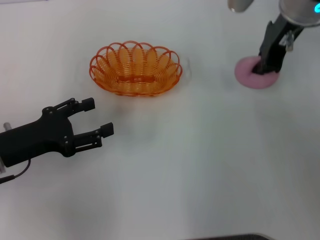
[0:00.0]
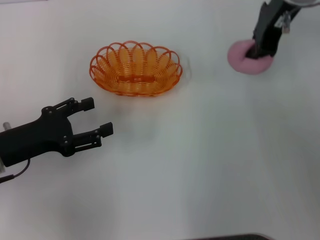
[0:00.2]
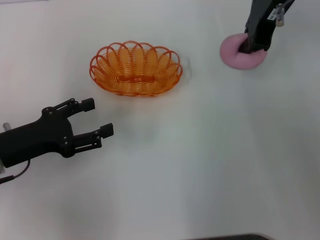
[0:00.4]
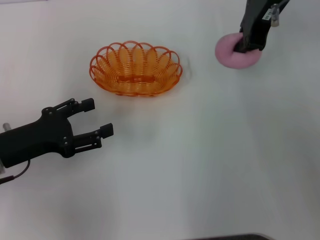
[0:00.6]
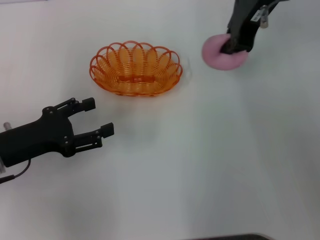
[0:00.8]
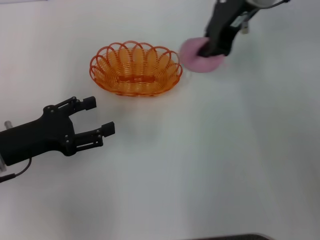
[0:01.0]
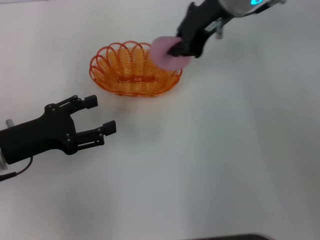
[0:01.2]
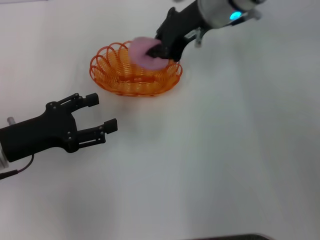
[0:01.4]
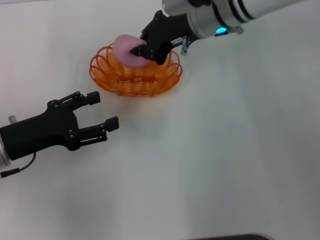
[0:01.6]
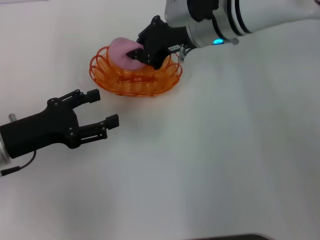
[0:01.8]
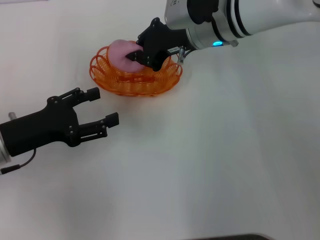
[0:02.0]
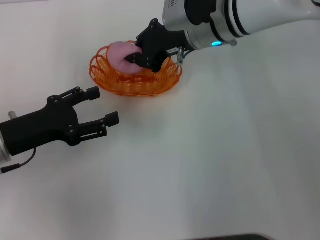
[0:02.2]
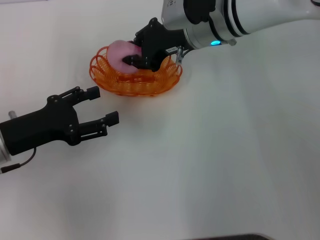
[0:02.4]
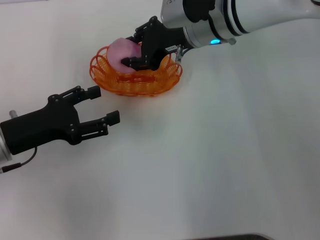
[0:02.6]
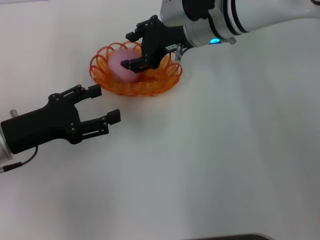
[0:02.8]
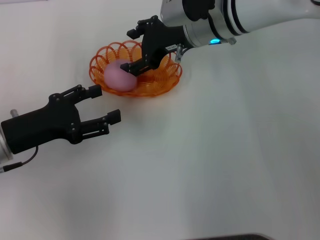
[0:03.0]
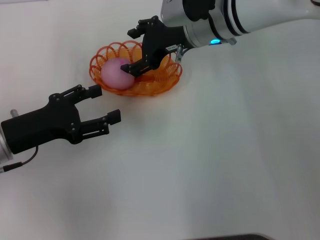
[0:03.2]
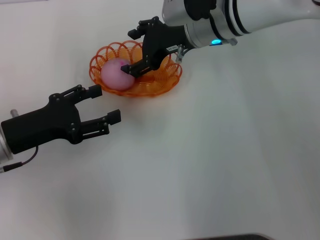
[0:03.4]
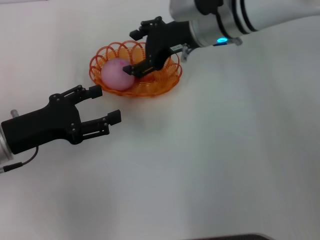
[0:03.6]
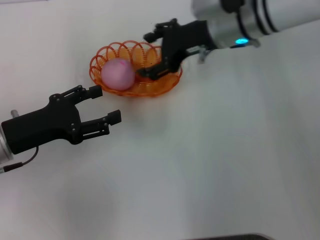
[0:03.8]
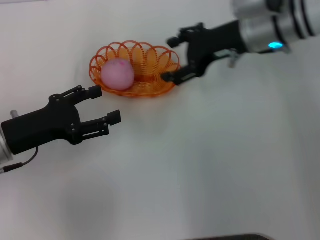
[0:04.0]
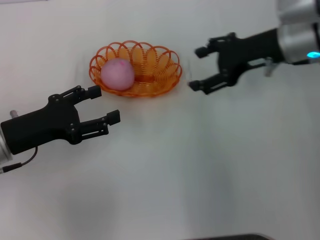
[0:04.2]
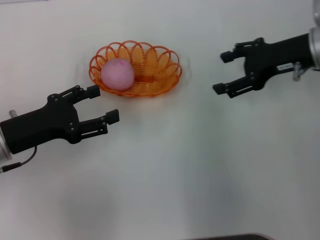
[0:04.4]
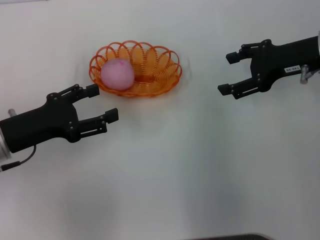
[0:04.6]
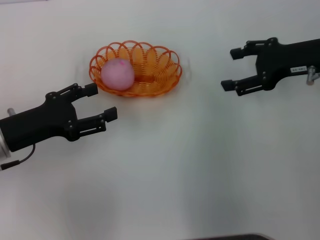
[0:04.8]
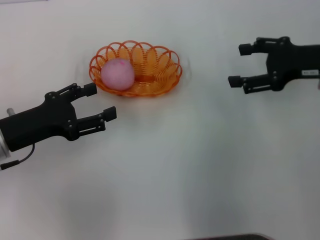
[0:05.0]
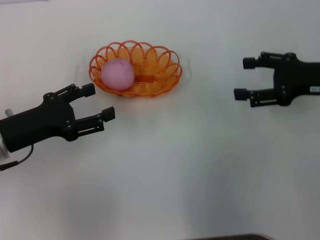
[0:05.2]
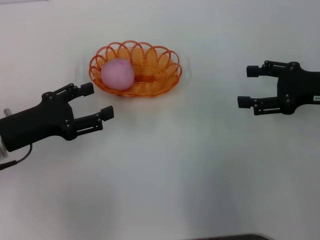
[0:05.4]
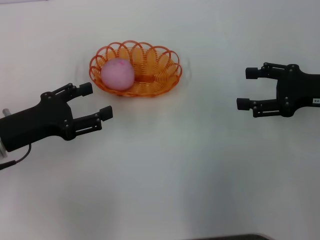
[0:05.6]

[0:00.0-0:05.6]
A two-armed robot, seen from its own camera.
Step, 0:00.4 to 0:03.6: Place the peach into the basket with the right gripper.
0:00.0 to 0:01.4: The right gripper goes roughly 5 cm to the left.
0:01.4 to 0:02.8: The right gripper opens.
0:02.8 to 0:04.2: The right gripper shifts about 15 cm to the right and backward, and opens.
0:04.2 to 0:05.6: The right gripper shifts some 10 cm to the right and backward.

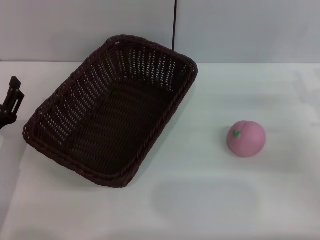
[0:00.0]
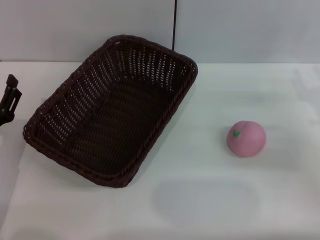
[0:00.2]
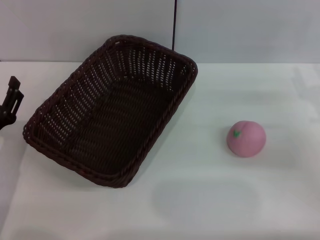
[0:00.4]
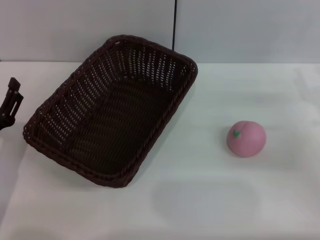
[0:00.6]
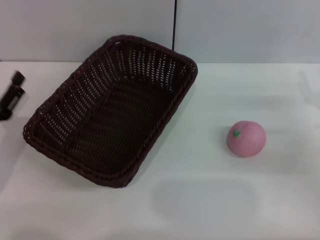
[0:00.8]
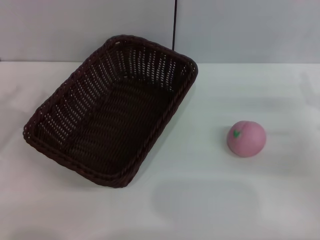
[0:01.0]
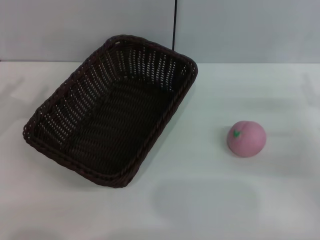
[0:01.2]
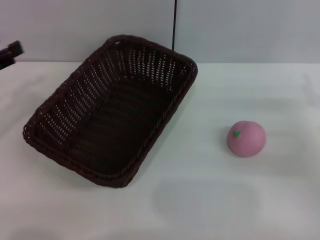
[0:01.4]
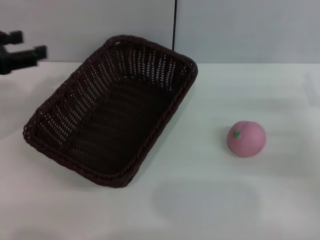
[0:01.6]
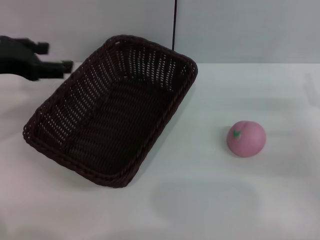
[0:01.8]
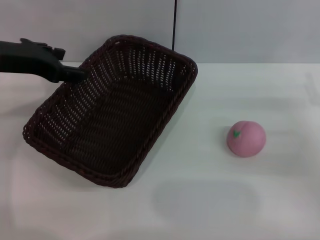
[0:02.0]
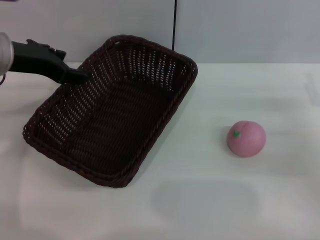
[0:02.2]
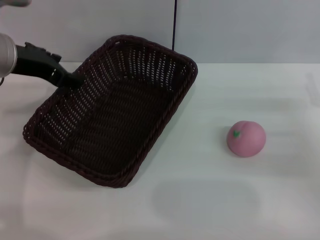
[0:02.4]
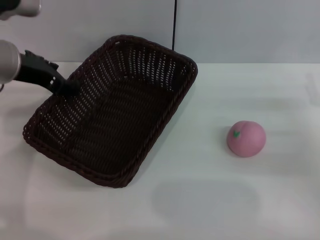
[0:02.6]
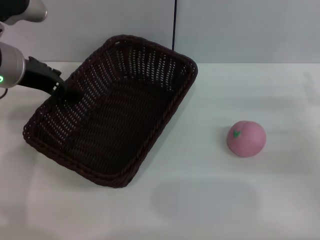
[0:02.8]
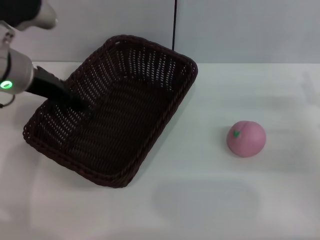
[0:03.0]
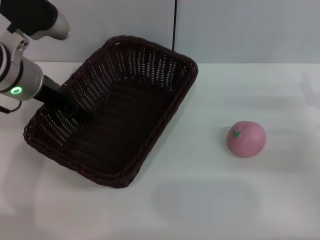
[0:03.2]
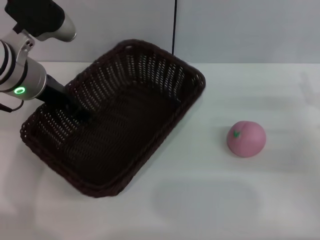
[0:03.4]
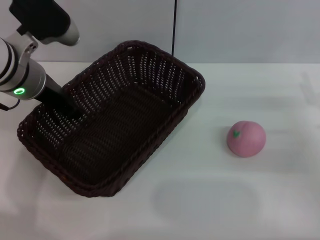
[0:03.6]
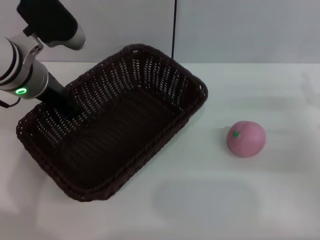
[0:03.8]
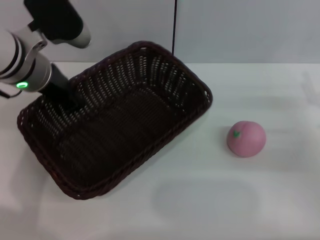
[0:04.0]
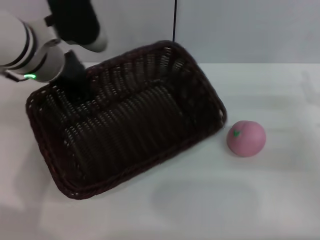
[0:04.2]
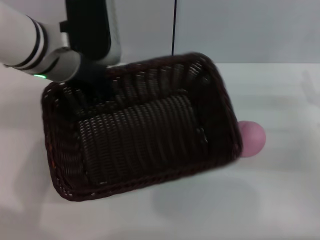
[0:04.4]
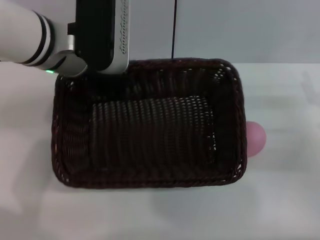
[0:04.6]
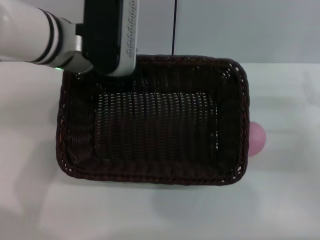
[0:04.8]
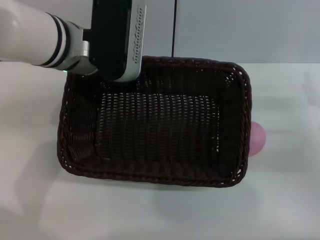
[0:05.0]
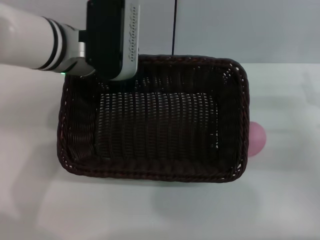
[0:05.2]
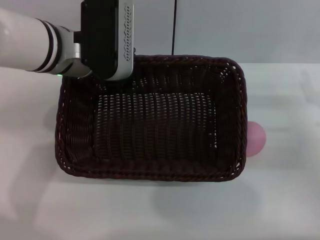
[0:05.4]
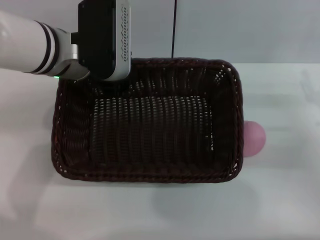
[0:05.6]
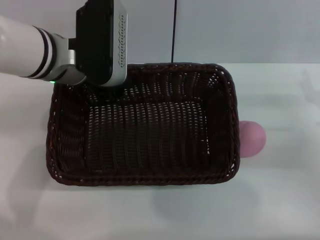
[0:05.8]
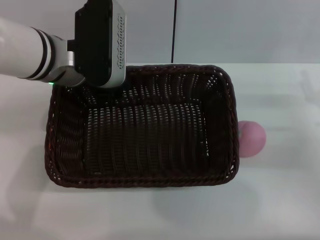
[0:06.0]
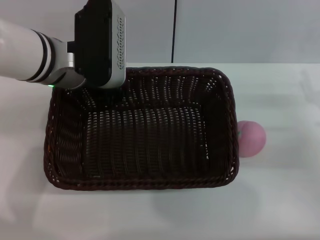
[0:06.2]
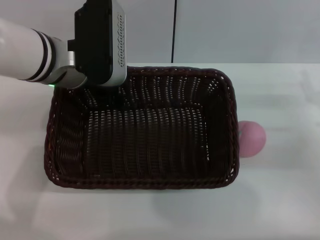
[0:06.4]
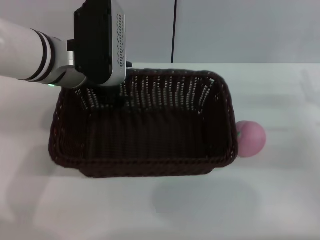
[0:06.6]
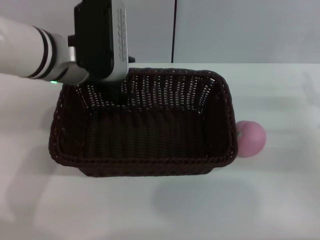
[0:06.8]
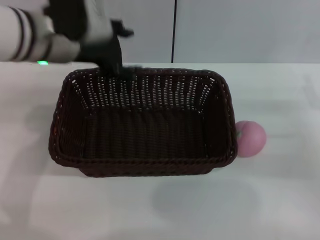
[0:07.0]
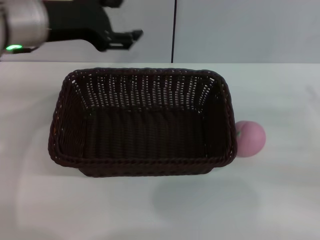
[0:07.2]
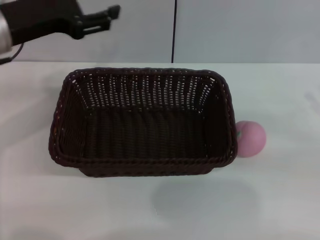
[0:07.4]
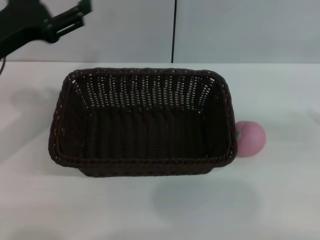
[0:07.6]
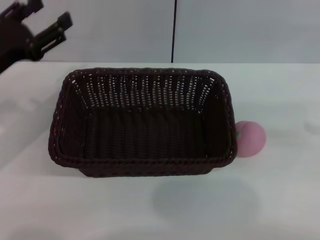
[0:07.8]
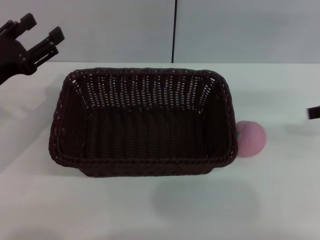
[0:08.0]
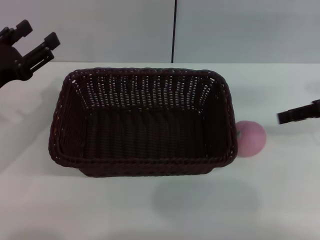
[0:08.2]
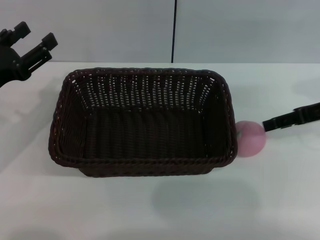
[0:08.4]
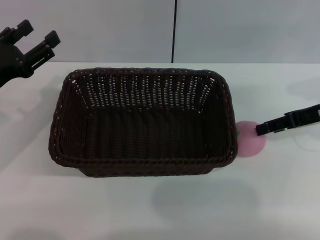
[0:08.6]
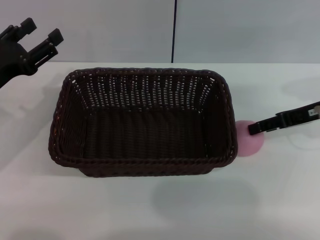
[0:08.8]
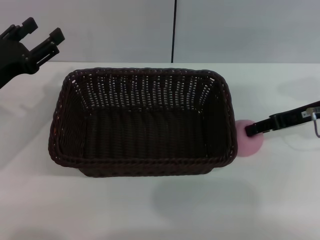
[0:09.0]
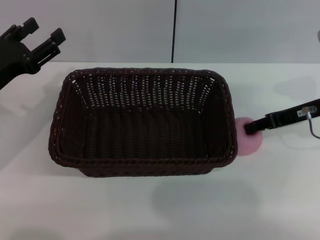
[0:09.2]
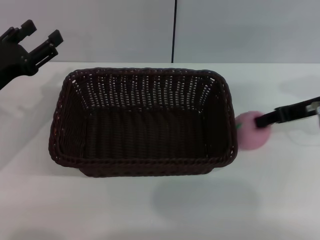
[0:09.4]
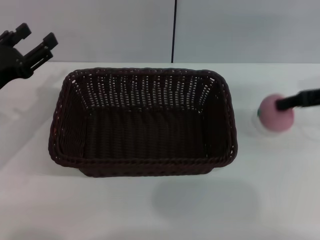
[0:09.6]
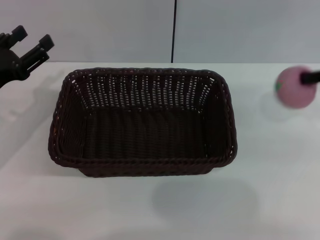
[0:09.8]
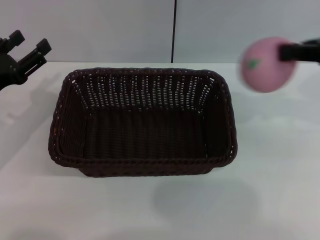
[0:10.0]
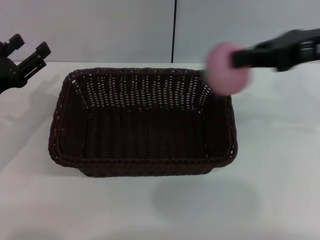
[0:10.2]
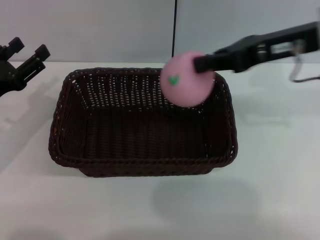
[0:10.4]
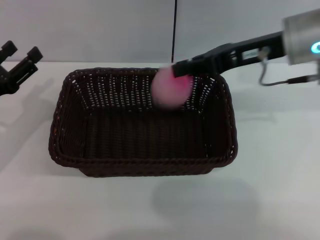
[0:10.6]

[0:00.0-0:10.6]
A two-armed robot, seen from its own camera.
Step, 0:00.0 to 0:04.0: Pick up the dark basket with the left gripper.
Step, 0:04.4 to 0:06.8: Place the dark basket in the center of view with the right gripper.
Step, 0:07.0 to 0:09.8: Pick up the peach with the left gripper.
0:00.0 to 0:01.6: The left gripper shifts approximately 20 cm upward and forward.
0:01.6 to 0:03.0: The left gripper moves to the right and forward, about 15 cm.
0:03.0 to 0:04.6: The left gripper heads to the right, covering approximately 5 cm, and closes up.
0:04.6 to 0:06.0: There are only small adjustments of the grippers.
0:06.0 to 0:07.6: The right gripper heads upward and to the right, covering approximately 15 cm. Meanwhile the left gripper is displaced to the left by about 10 cm, and opens its fingers.
0:07.6 to 0:09.0: The left gripper shifts roughly 5 cm downward. Meanwhile the right gripper heads to the left and forward, covering about 15 cm.
0:09.0 to 0:10.6: The right gripper moves to the left and upward, roughly 10 cm, and closes.

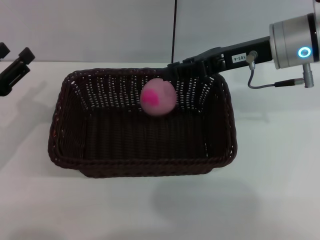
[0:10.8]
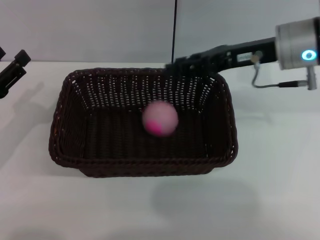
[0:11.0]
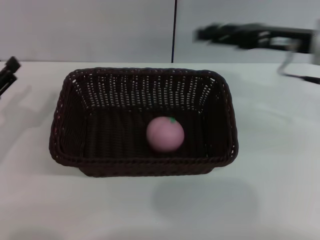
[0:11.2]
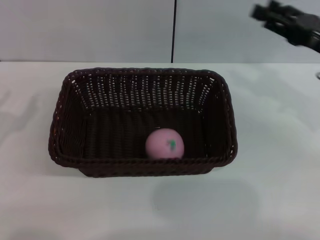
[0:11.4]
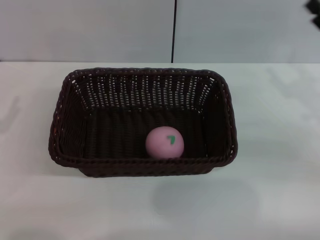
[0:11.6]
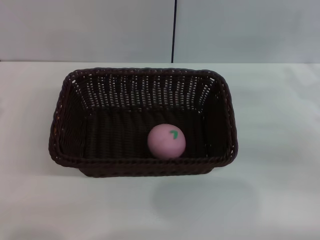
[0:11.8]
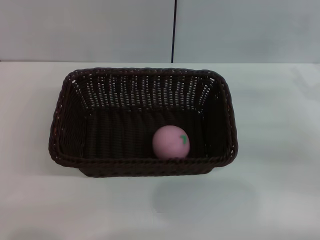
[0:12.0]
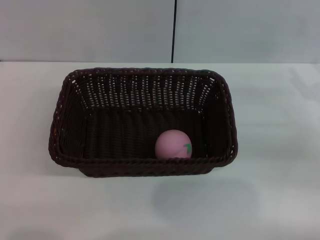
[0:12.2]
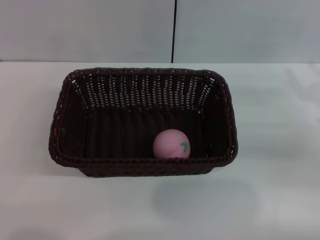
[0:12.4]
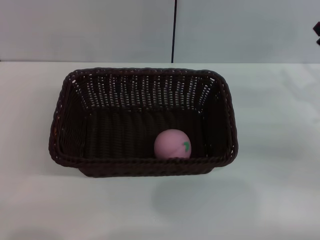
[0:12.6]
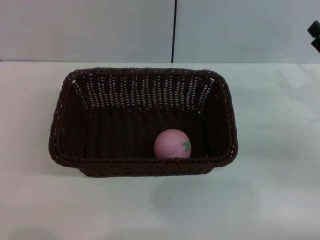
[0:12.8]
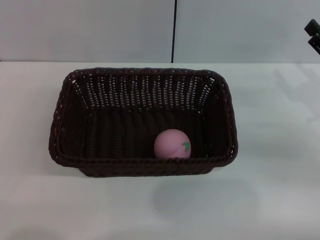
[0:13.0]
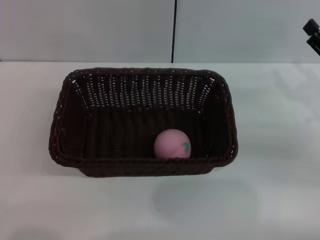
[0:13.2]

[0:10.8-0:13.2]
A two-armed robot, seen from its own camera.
0:10.8 to 0:12.0: The left gripper heads to the left and backward, covering approximately 10 cm. Meanwhile the right gripper shifts roughly 20 cm to the right, downward and backward, and opens up.

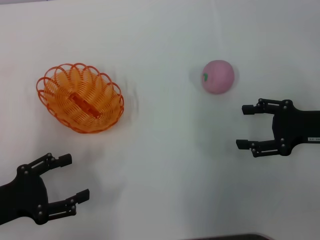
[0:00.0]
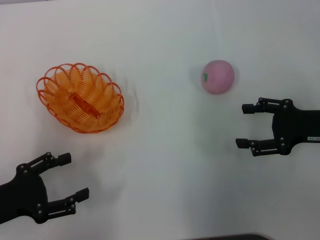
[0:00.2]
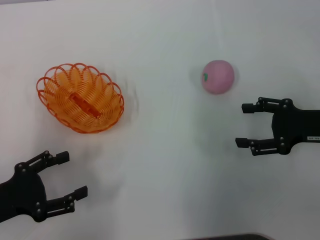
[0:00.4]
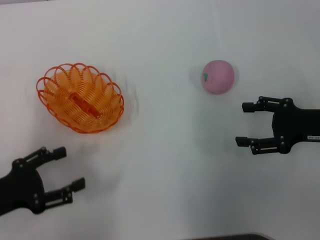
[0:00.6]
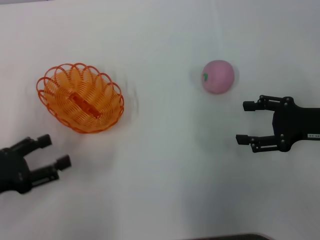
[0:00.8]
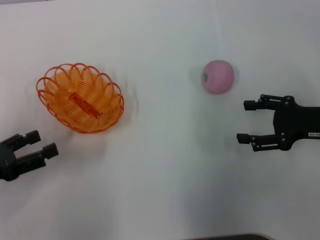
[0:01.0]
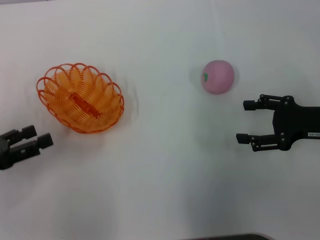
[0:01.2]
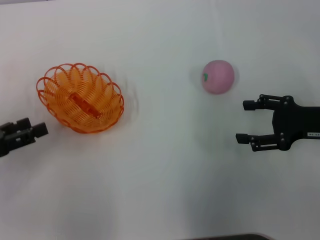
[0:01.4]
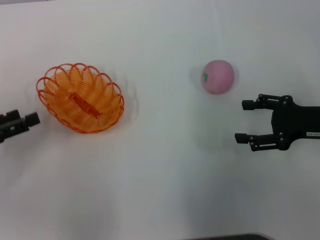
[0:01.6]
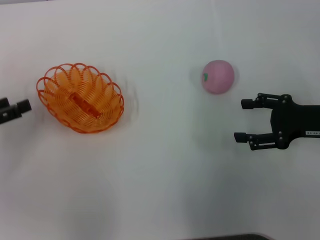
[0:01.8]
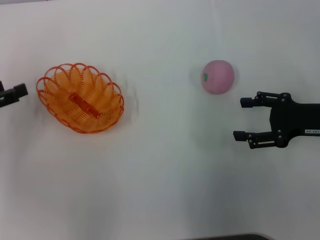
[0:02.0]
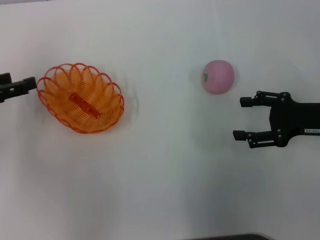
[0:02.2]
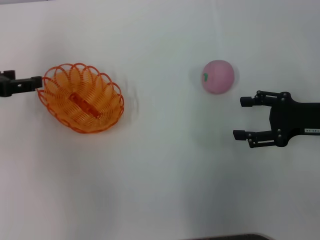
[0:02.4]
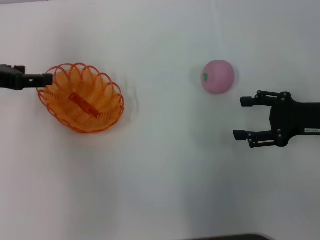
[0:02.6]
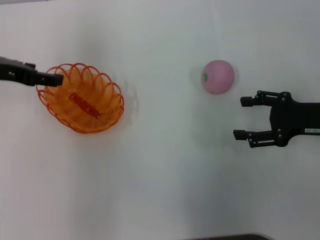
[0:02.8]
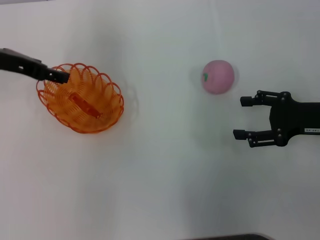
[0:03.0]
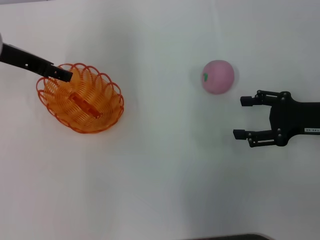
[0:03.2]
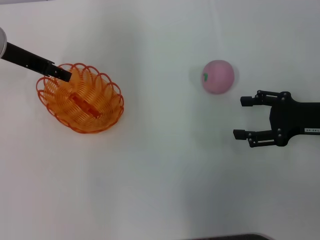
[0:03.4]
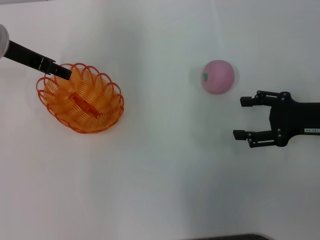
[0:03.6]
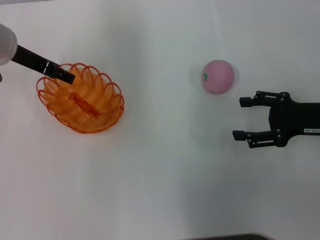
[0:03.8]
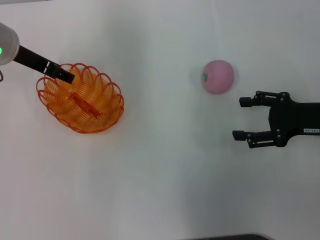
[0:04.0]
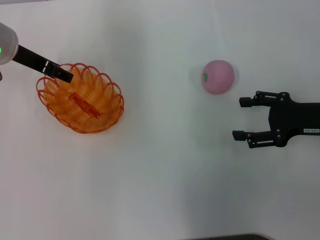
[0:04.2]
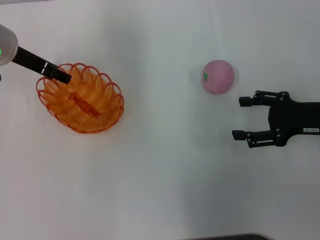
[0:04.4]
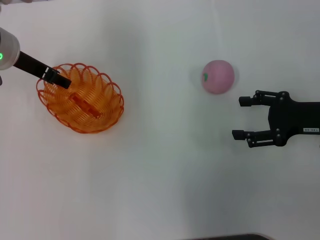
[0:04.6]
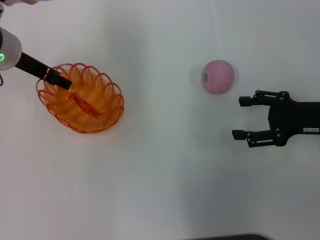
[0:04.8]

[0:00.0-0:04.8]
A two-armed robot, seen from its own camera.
0:00.0 to 0:01.6: The left gripper is displaced forward by about 5 cm.
0:01.6 to 0:03.2: The left gripper heads forward, to the right and upward, covering approximately 20 cm.
0:03.2 to 0:04.8: The grippers stay close to where they were, moving slightly.
